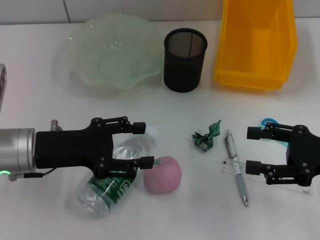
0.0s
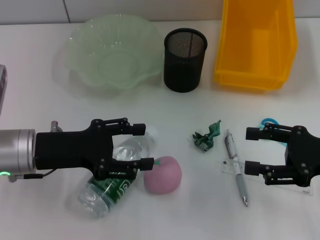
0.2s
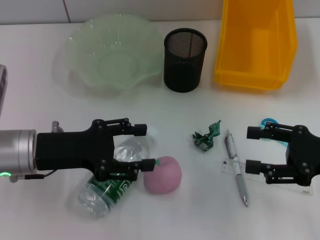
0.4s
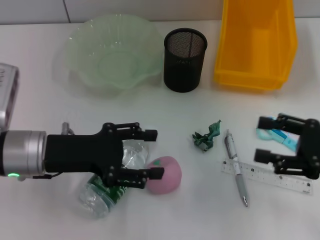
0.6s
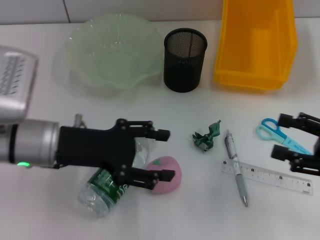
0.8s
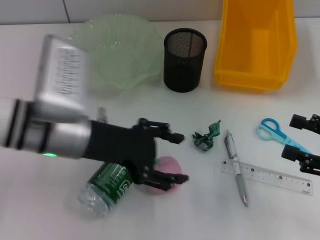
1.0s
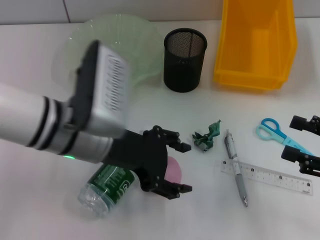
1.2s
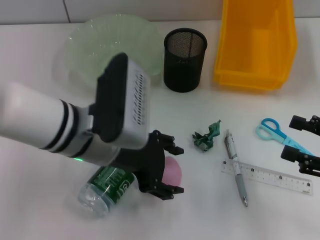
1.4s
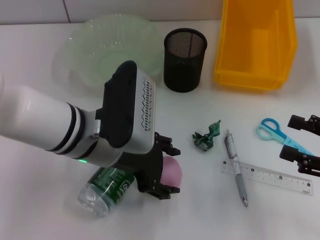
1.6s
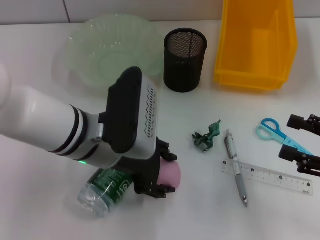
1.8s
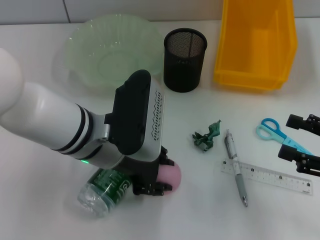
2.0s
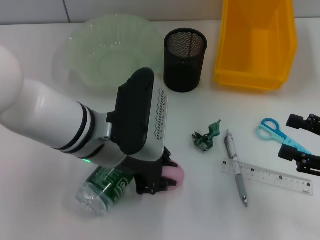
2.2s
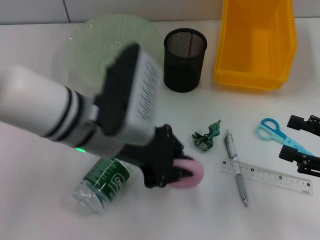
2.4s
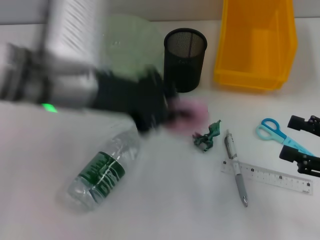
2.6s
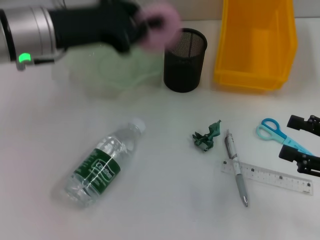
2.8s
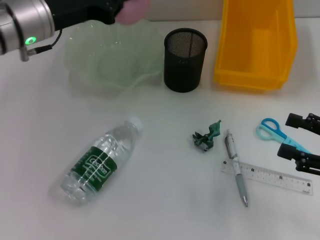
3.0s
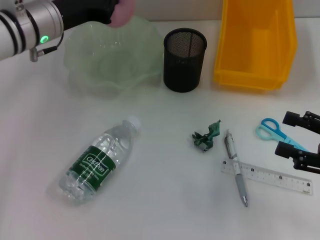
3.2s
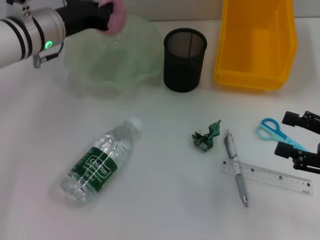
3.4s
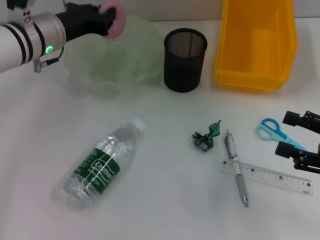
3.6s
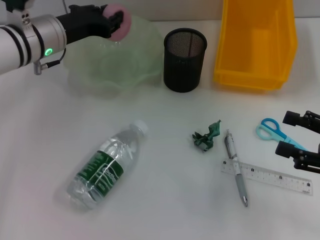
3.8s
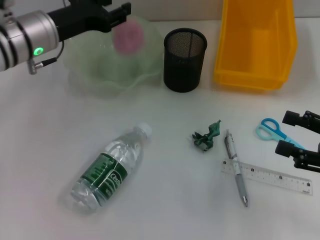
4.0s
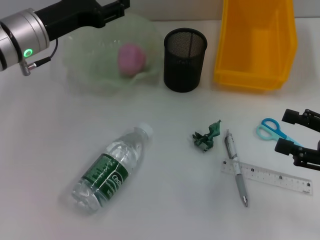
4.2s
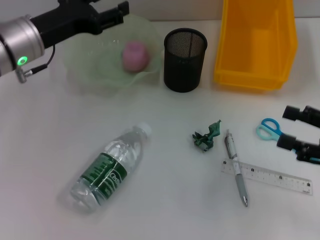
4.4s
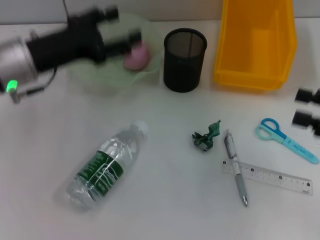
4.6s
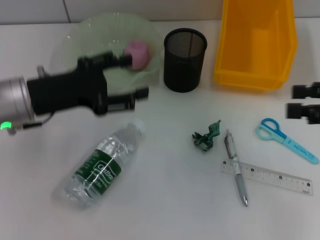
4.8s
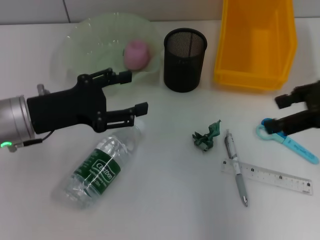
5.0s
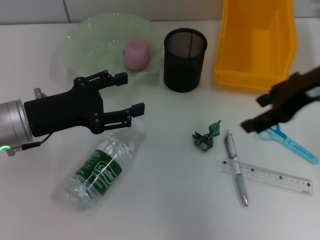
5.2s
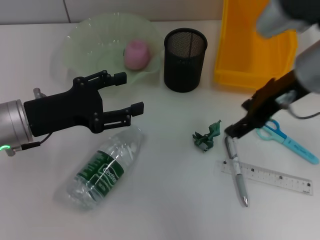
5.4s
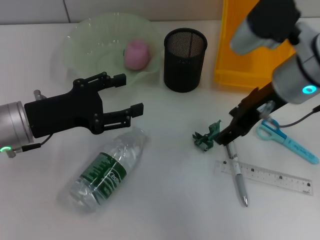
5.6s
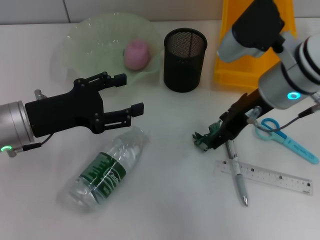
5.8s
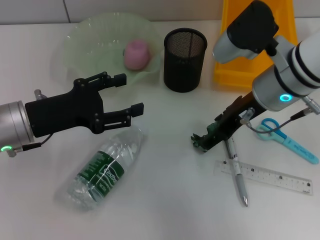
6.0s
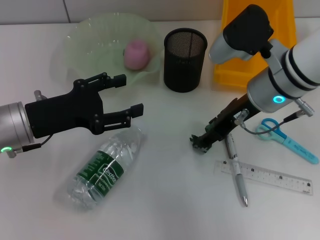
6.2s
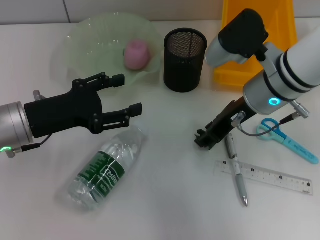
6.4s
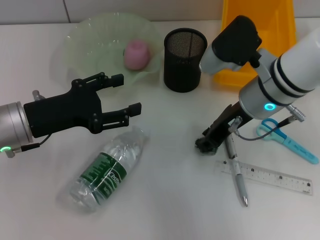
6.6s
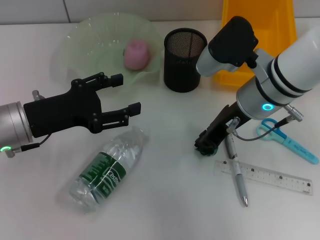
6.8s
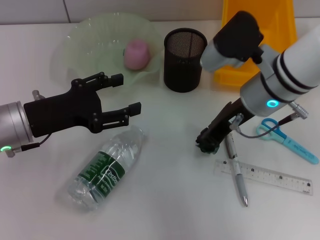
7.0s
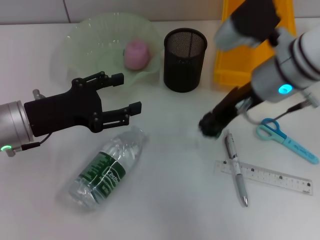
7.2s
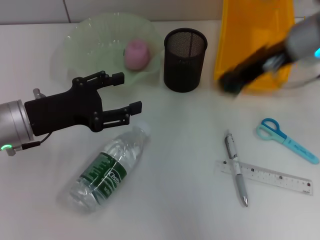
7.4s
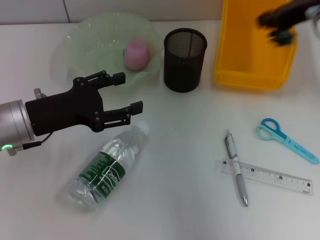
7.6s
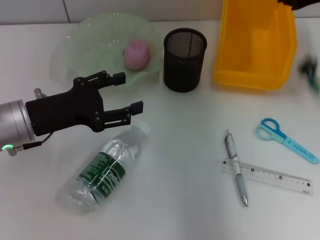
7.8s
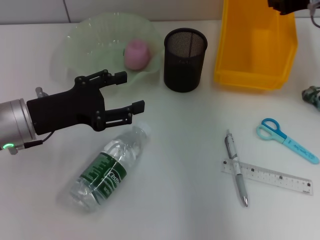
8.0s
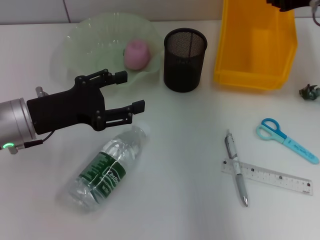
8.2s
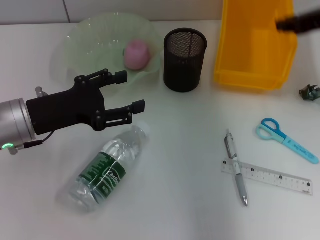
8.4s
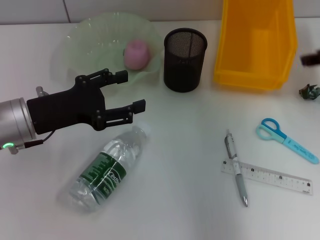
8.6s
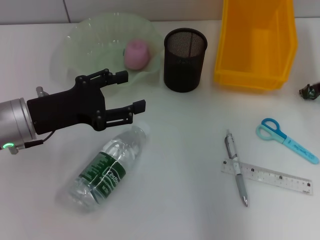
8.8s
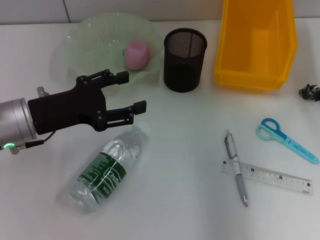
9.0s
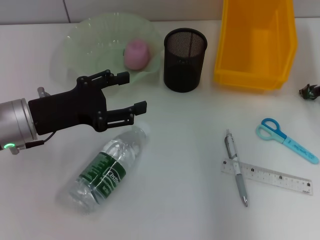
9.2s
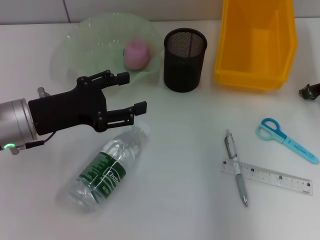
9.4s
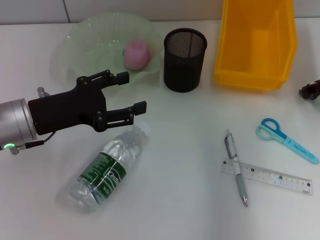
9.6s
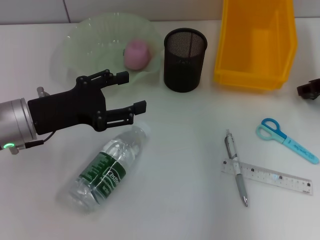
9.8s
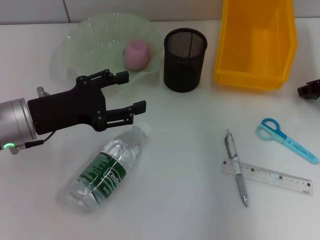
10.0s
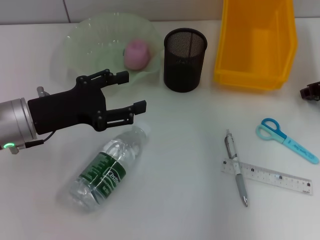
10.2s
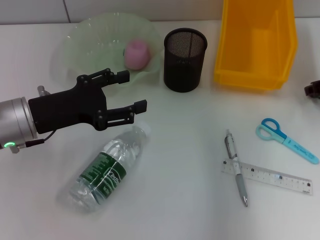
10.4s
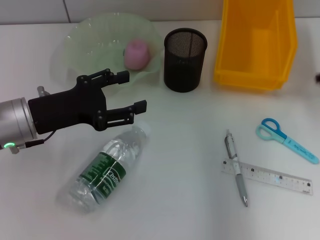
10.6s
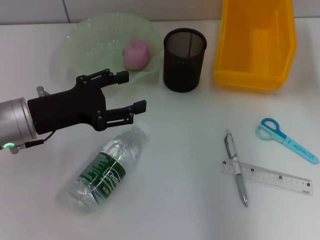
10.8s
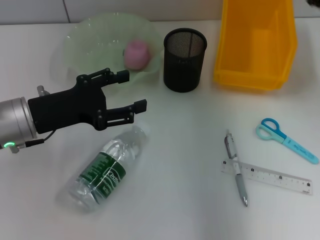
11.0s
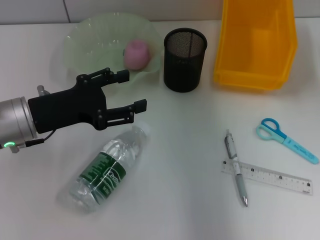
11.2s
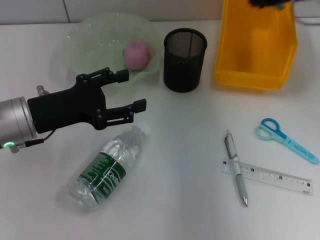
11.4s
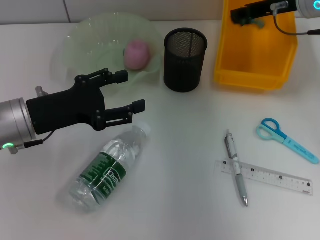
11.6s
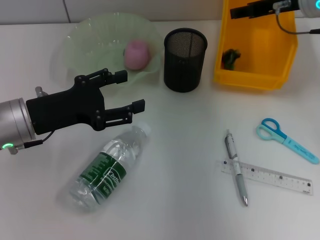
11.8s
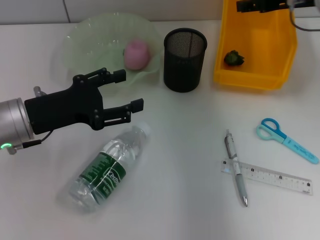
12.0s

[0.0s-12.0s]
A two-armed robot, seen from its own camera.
Step, 0.0s to 2.0s: Grab the peach with the left hand.
Step, 2.2s to 4.0s: Place the peach into the fruit bowl with the left hand.
Step, 4.4s to 10.0s: Grab the plastic with the right hand.
Step, 10.2s to 12.0s: Place the plastic into the trash can with the right hand.
0.0s to 1.6s: The left gripper shifts some 10 cm to the right, while the right gripper changes place by approximately 5 cm.
1.6s to 3.0s: The left gripper moves forward and to the left, about 15 cm, and closes up.
3.0s to 4.4s: The left gripper opens.
4.4s to 6.0s: The right gripper is displaced to the left and forward by about 25 cm, while the left gripper moves backward, some 10 cm.
6.0s to 7.6s: The right gripper travels upward and to the right by some 15 cm, and closes up.
7.6s to 9.0s: The right gripper is displaced downward and to the right by some 15 cm, and opens up.
9.0s to 10.4s: There are only small adjustments of the grippers.
10.4s to 12.0s: The right gripper moves upward and to the left, about 10 cm.

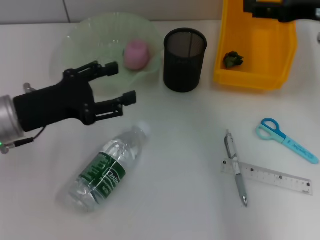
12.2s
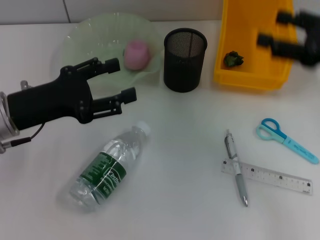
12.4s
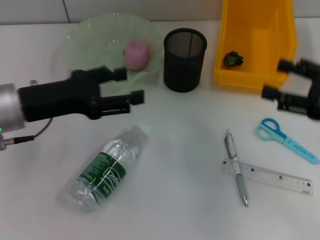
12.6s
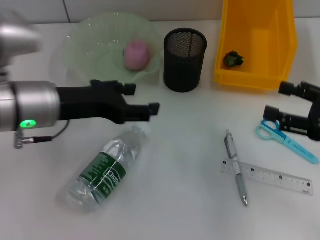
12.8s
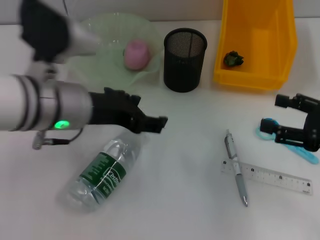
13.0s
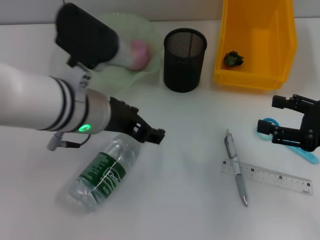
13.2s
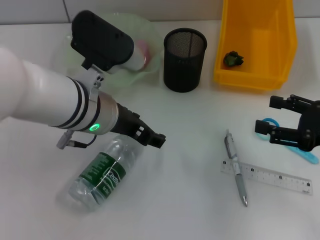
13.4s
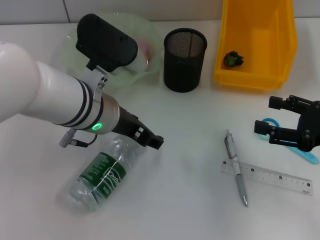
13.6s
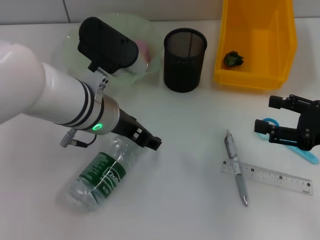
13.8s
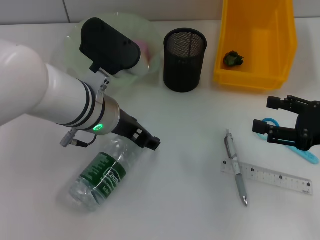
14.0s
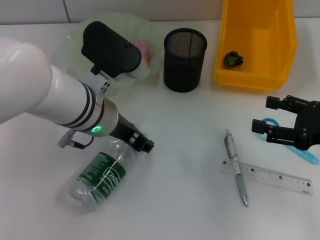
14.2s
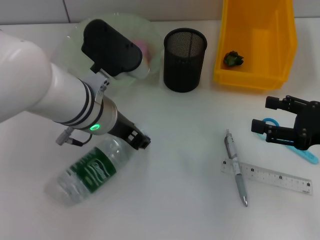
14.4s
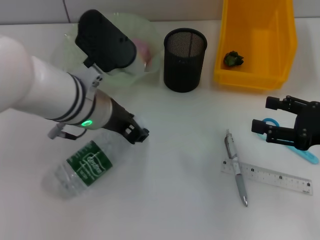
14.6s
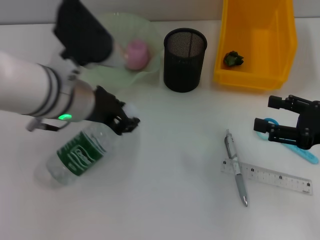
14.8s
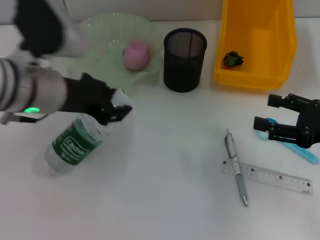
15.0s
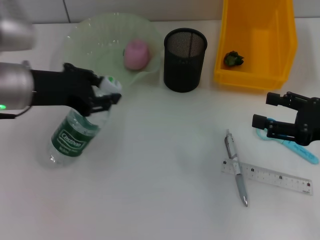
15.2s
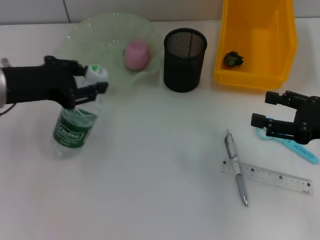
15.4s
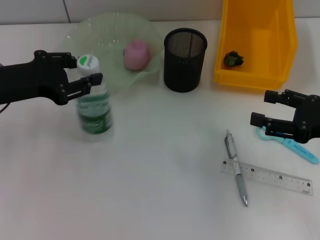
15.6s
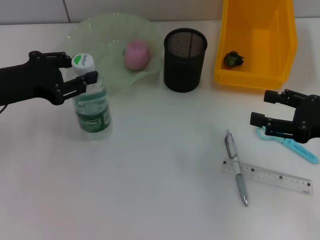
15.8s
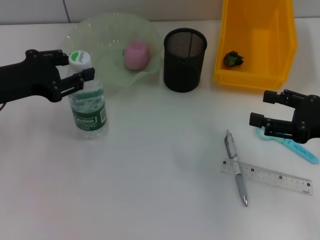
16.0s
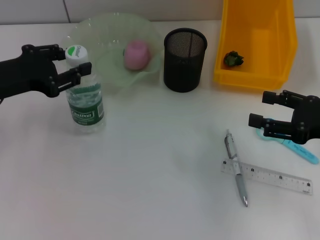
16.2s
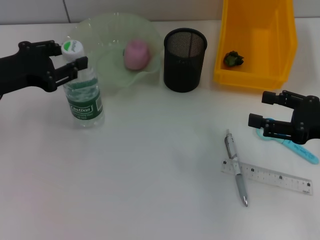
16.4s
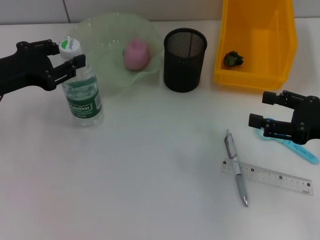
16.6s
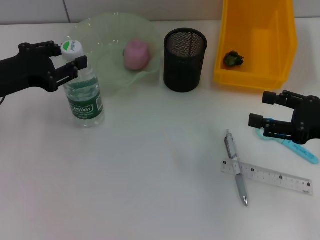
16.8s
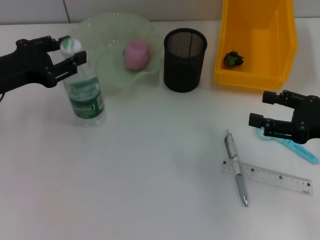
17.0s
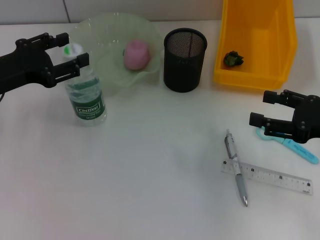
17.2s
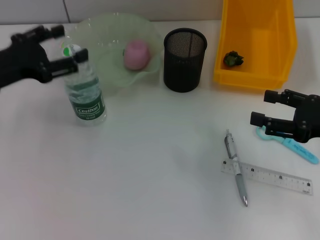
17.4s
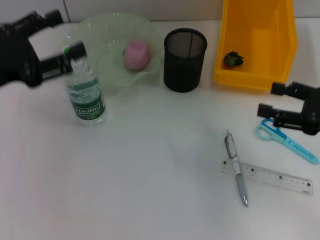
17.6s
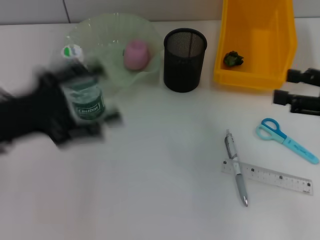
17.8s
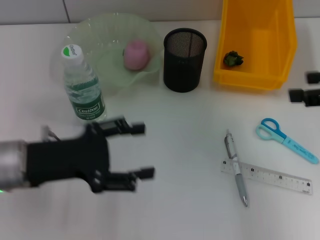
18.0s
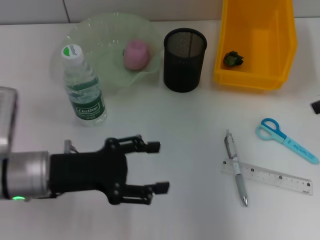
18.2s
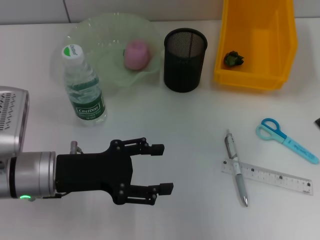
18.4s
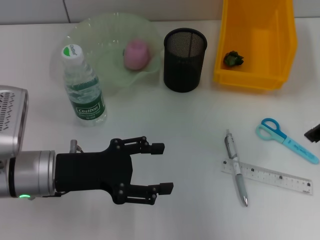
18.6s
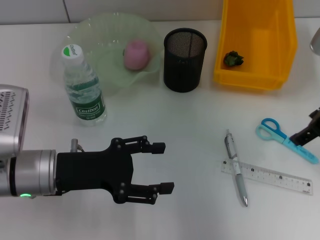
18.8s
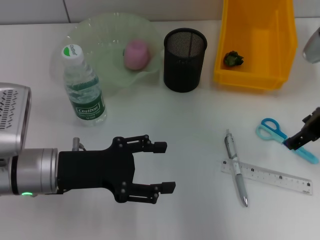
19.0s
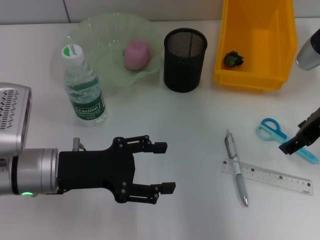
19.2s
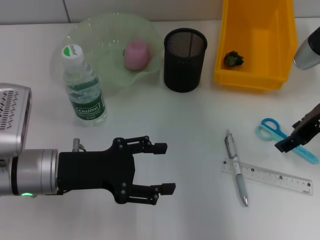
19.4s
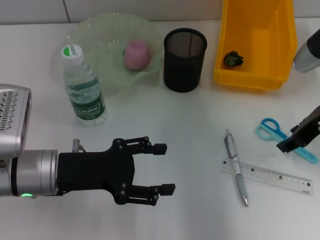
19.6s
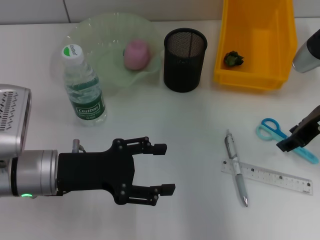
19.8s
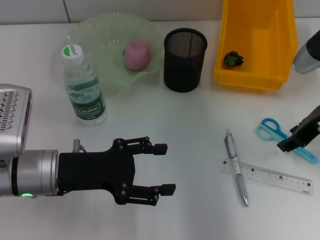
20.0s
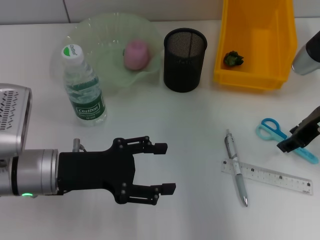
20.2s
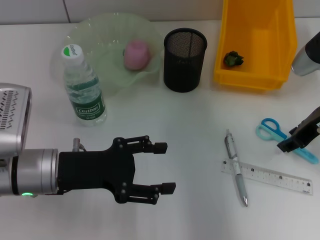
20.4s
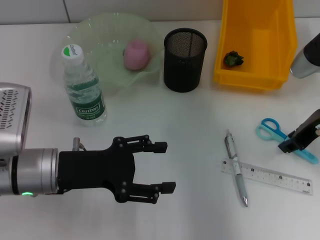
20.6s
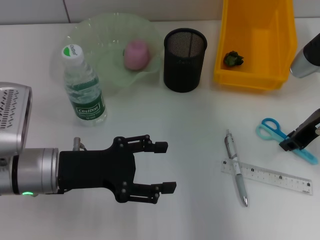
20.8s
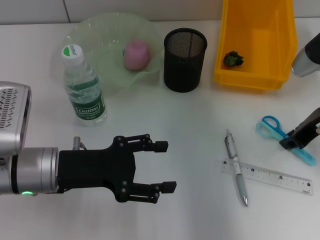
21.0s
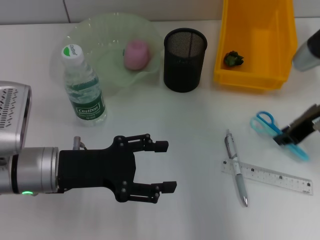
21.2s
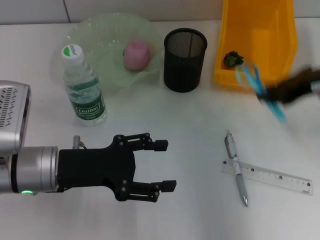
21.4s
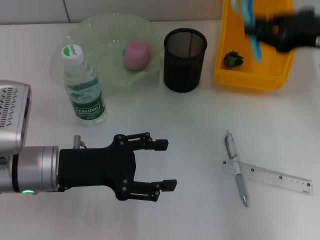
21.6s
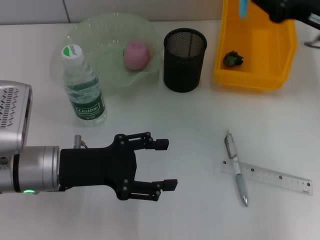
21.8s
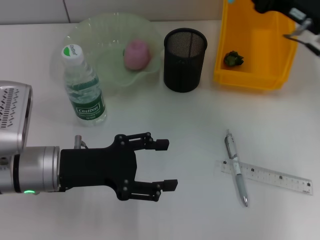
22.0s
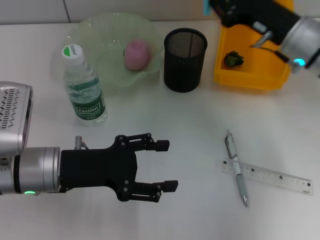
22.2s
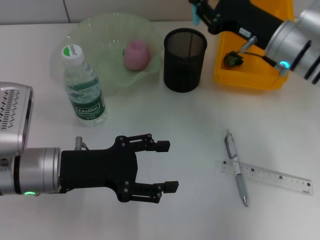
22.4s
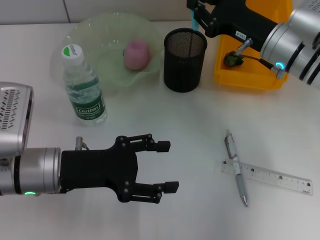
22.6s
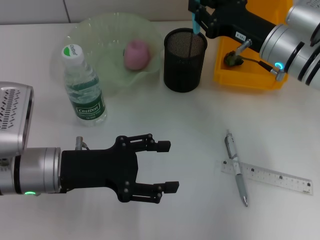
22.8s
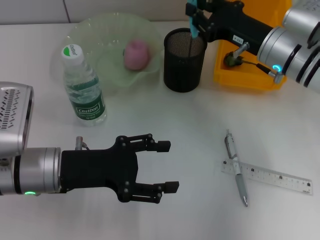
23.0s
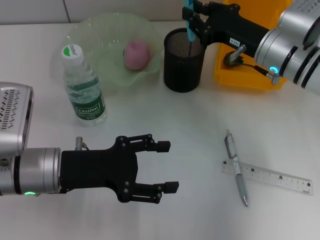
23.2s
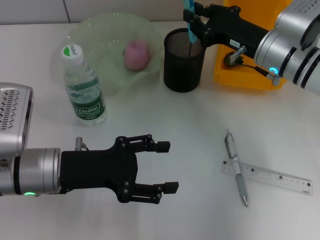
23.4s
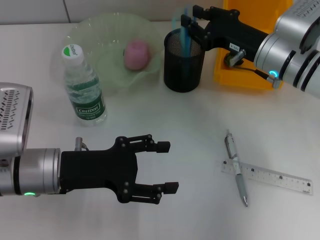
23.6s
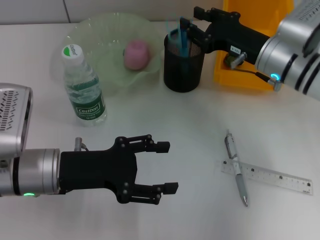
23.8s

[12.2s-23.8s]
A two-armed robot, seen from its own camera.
Step, 12.2s to 14.2s: Grab the water bottle with the left hand.
Step, 14.4s to 17.2s: Place the water bottle on the table with the left hand.
Step, 17.6s to 20.6s: Grab the blue utility knife with the right hand.
Step, 20.8s to 23.8s: Place the blue utility knife into the pen holder with the right hand.
12.2s to 13.6s: The right gripper is displaced backward and downward by some 15 cm. The left gripper moves to the right, approximately 15 cm.
13.6s to 15.0s: The left gripper goes roughly 5 cm to the left, and closes up.
15.0s to 16.6s: The left gripper heads to the left, covering some 10 cm.
16.6s to 18.0s: The left gripper heads backward and to the right, covering about 10 cm, and opens, while the right gripper shifts roughly 10 cm upward.
18.0s to 19.4s: The right gripper goes about 10 cm to the left, forward and downward.
19.4s to 21.0s: The right gripper closes.
21.0s to 22.4s: The right gripper shifts some 5 cm to the left, and reaches about 5 cm upward, then returns.
22.4s to 23.8s: There are only small adjustments of the grippers.
